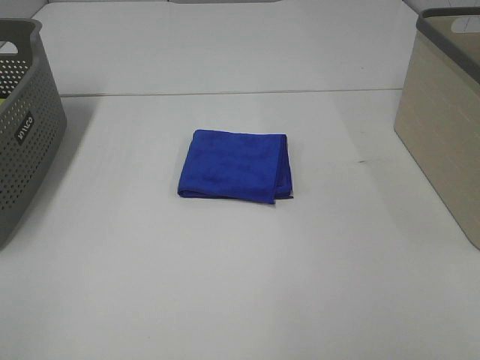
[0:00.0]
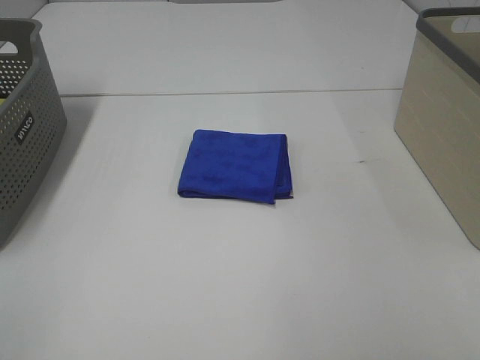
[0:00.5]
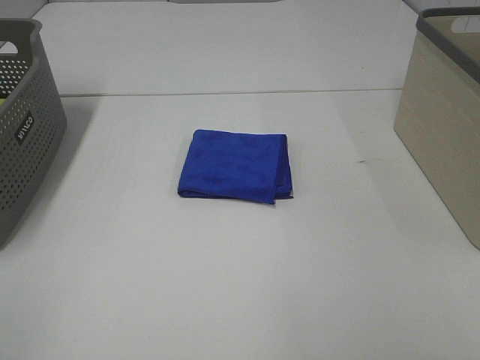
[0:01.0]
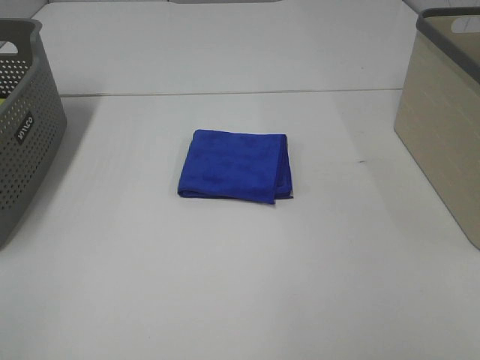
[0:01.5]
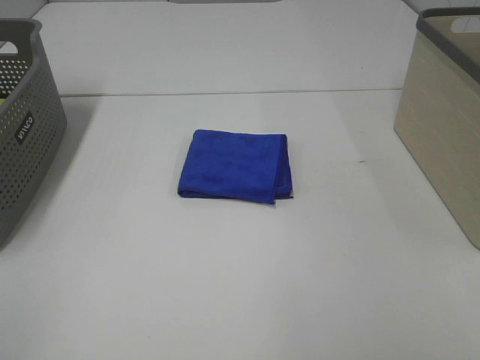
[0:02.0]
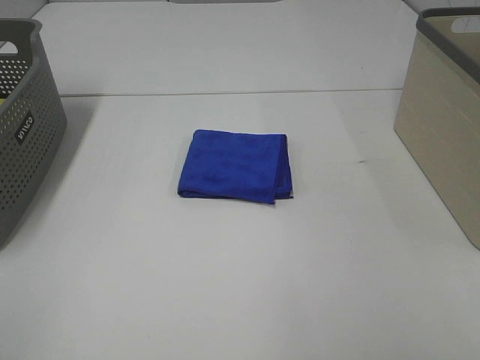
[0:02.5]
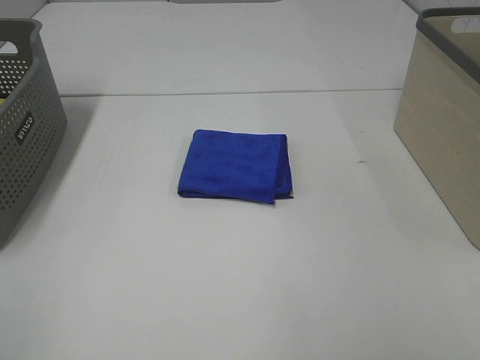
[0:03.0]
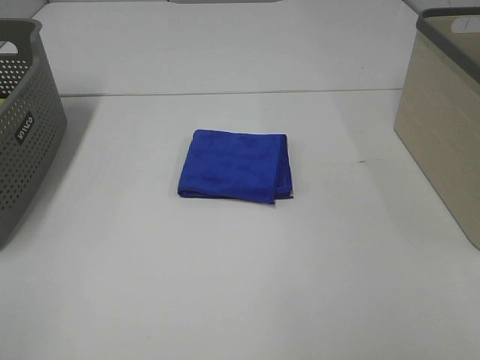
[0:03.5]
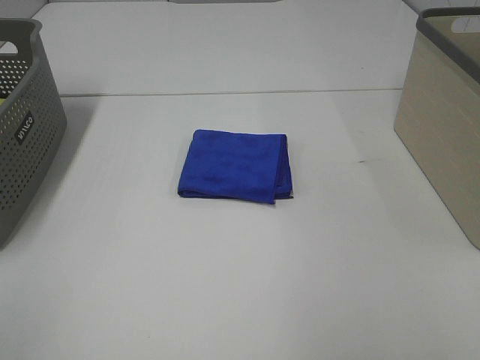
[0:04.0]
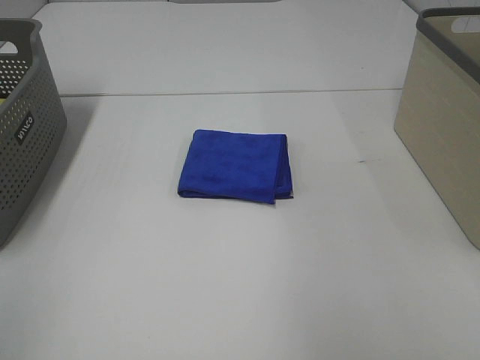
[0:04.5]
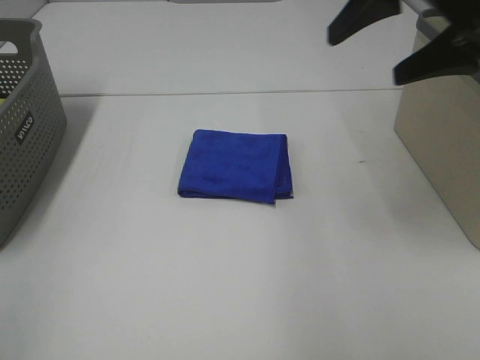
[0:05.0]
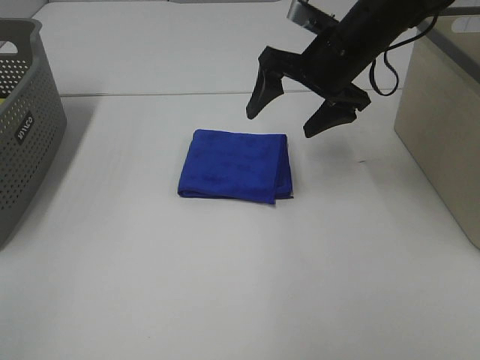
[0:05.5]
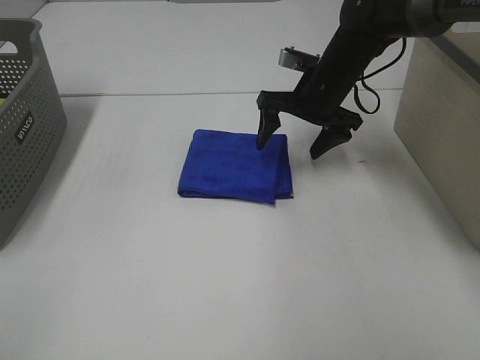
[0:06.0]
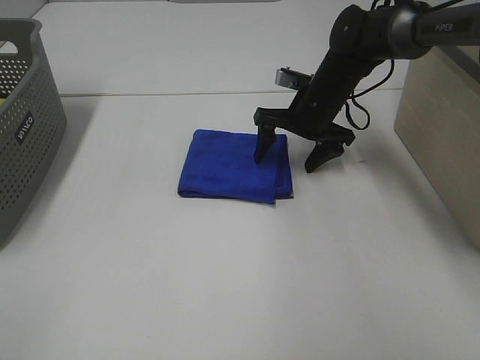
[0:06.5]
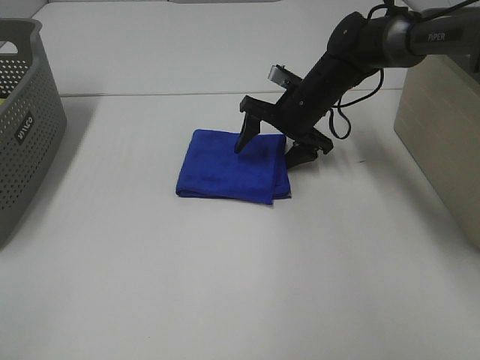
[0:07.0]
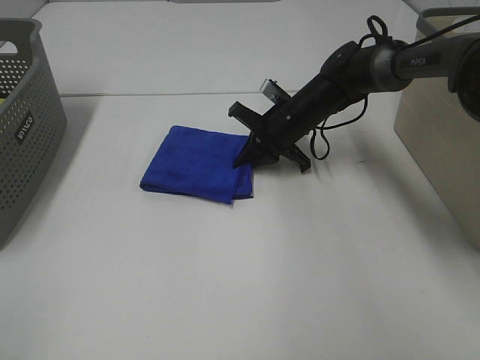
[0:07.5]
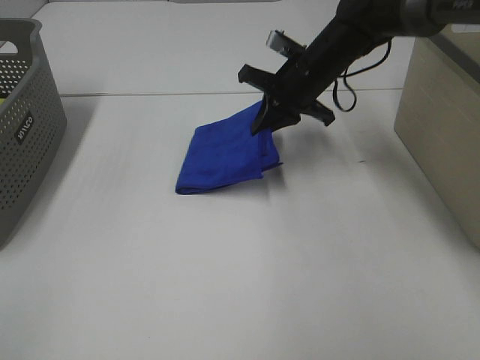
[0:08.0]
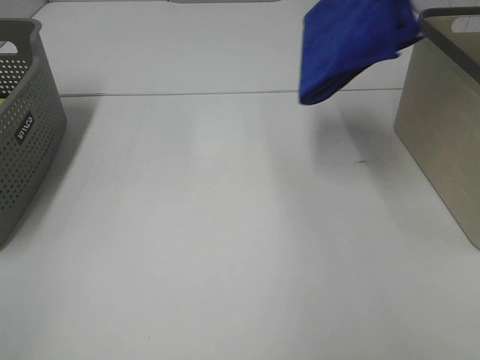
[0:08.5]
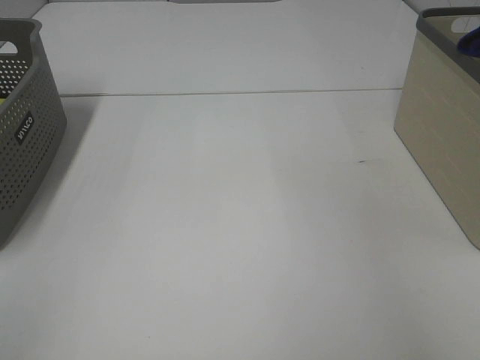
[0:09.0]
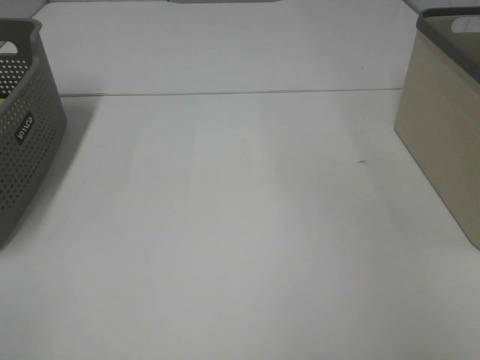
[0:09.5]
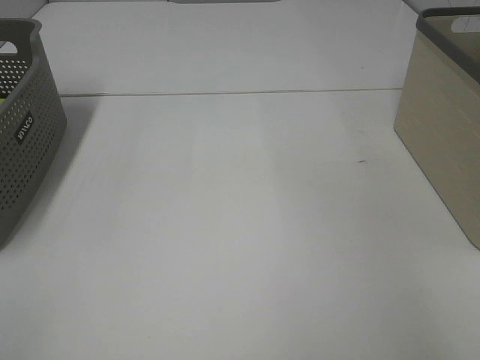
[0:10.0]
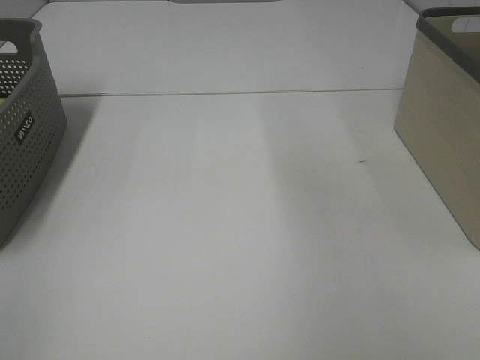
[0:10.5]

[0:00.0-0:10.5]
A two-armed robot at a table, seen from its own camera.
Step, 0:00.0 to 0:07.0: Right hand: grab the folded blue towel.
Step, 0:07.5 to 0:09.5: Right hand: place the blue towel in right basket.
0:00.0 to 0:02.0: Both grippers stay put.
0:04.0 to 0:06.5: The right gripper goes some 50 cm forward, downward and to the left.
0:06.5 to 0:08.5: The right gripper moves upward and to the right, roughly 30 cm, and closes.
0:08.5 to 0:10.5: The right gripper goes to the right and returns, about 20 cm each way, and opens its fingers.

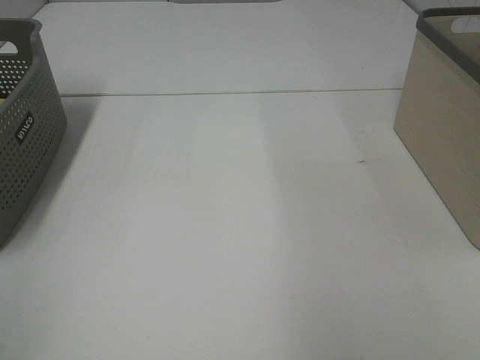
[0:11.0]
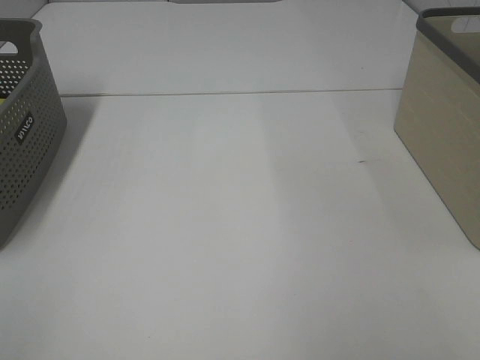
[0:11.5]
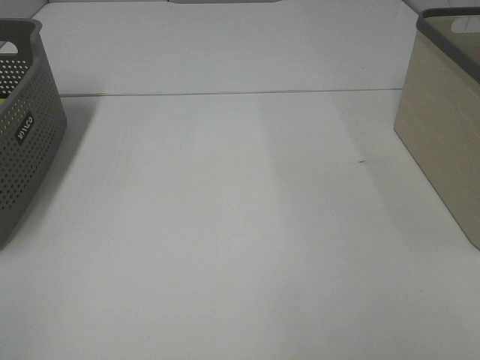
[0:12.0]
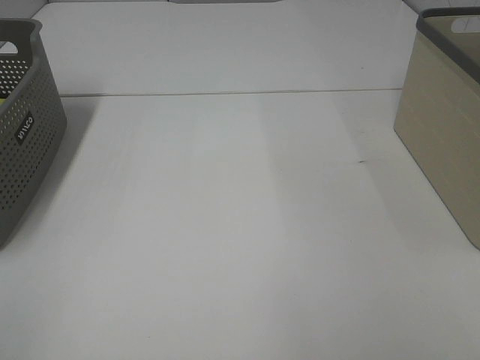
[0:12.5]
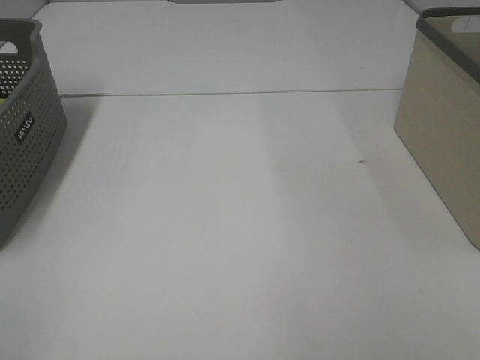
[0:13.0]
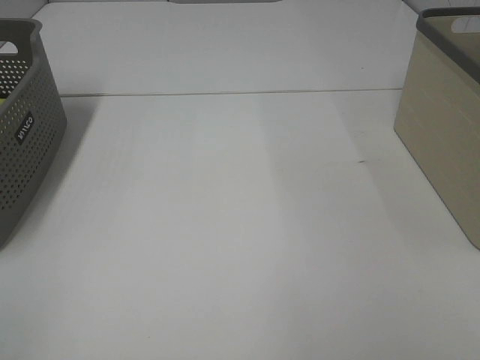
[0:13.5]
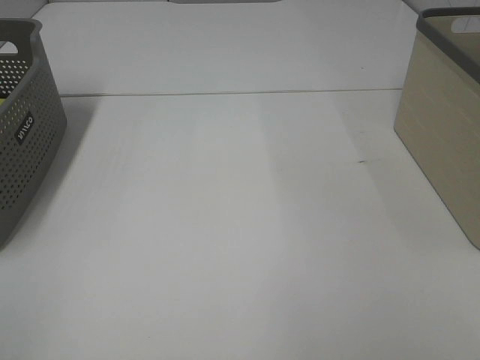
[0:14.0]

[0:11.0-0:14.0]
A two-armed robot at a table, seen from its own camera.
0:12.5 to 0:14.0: The two grippers keep their place.

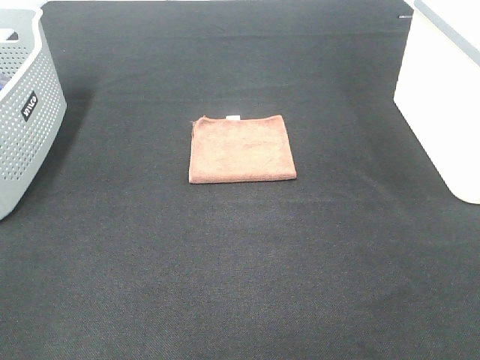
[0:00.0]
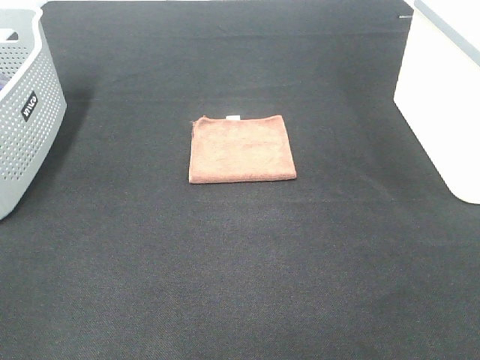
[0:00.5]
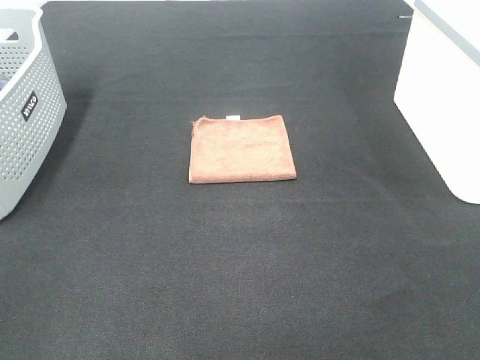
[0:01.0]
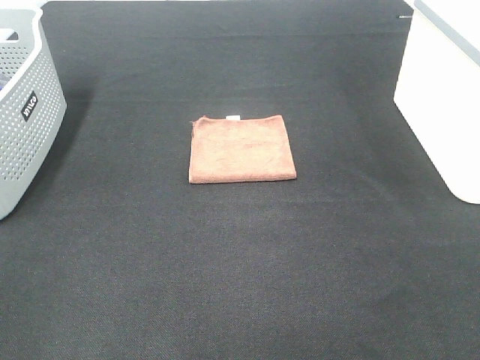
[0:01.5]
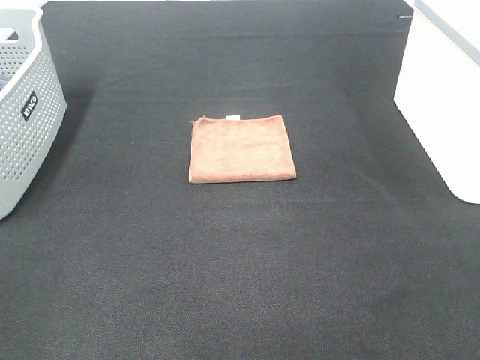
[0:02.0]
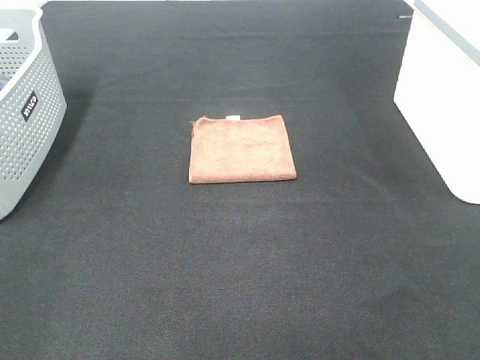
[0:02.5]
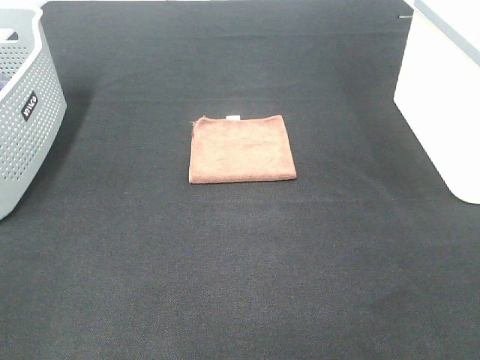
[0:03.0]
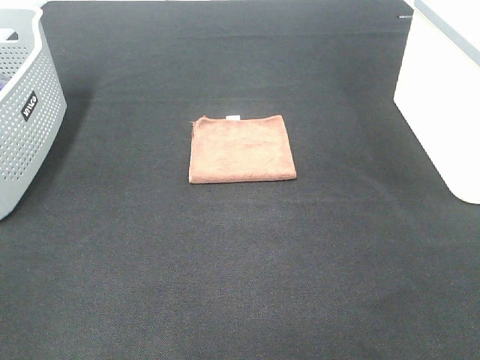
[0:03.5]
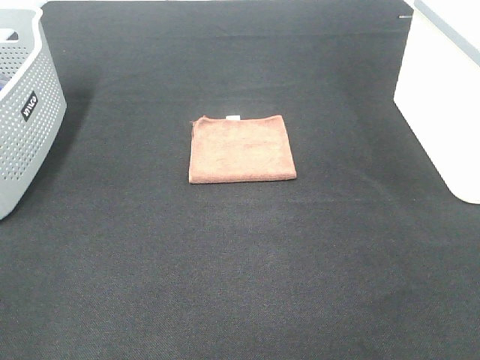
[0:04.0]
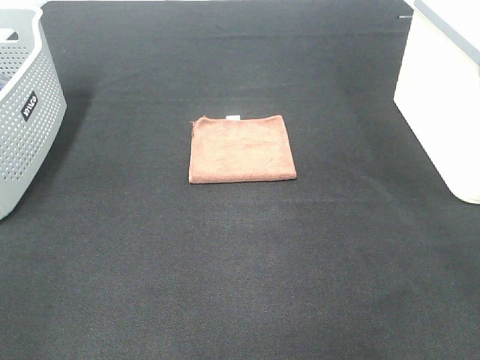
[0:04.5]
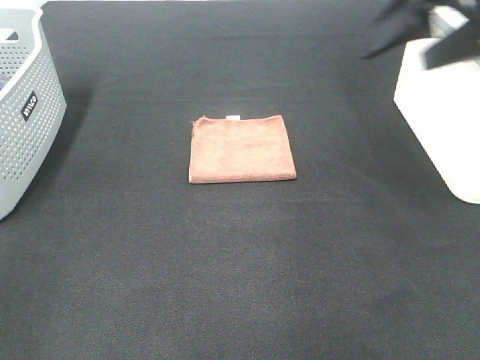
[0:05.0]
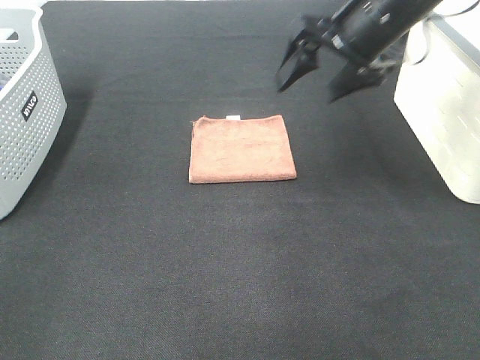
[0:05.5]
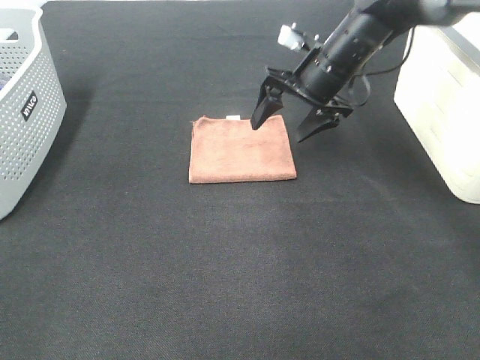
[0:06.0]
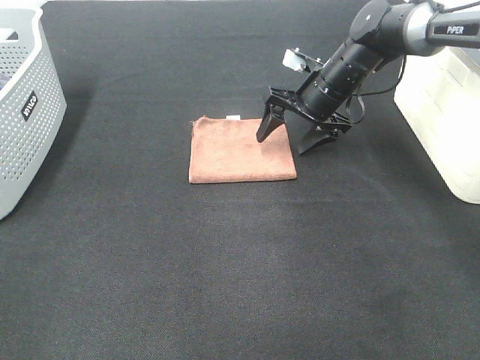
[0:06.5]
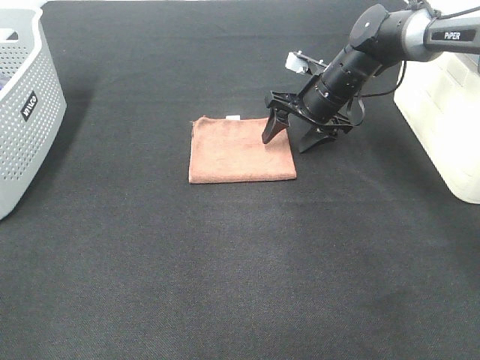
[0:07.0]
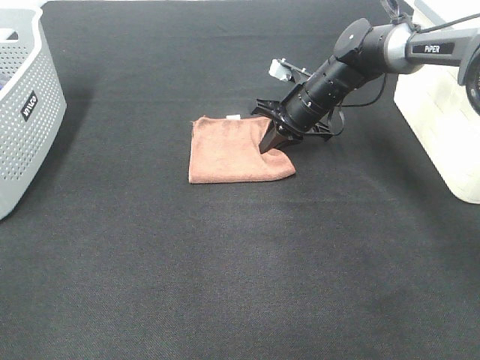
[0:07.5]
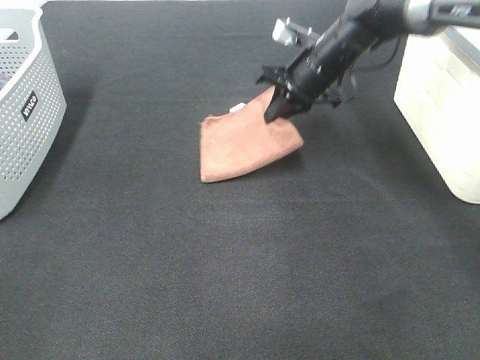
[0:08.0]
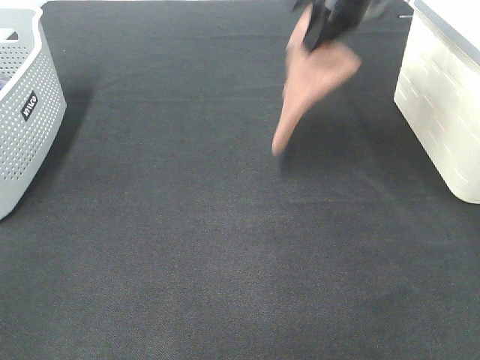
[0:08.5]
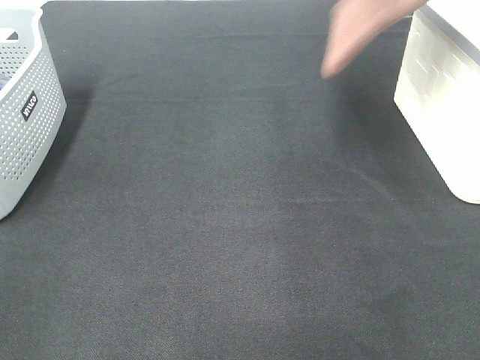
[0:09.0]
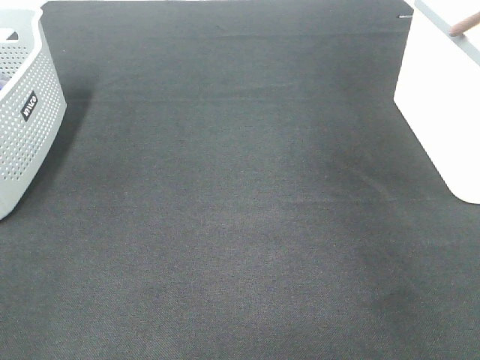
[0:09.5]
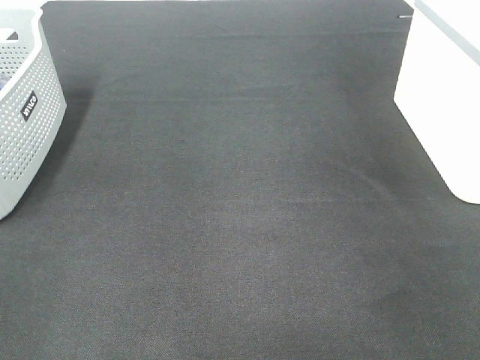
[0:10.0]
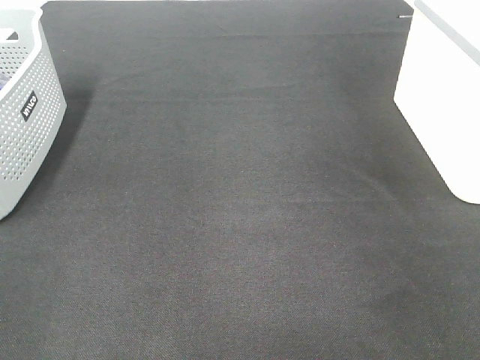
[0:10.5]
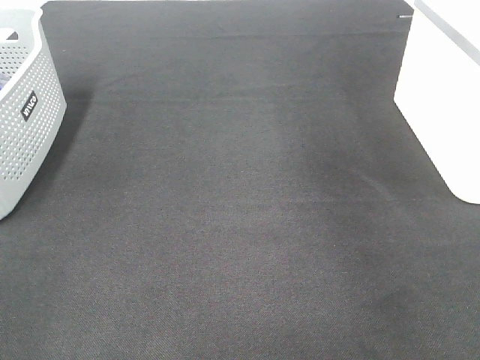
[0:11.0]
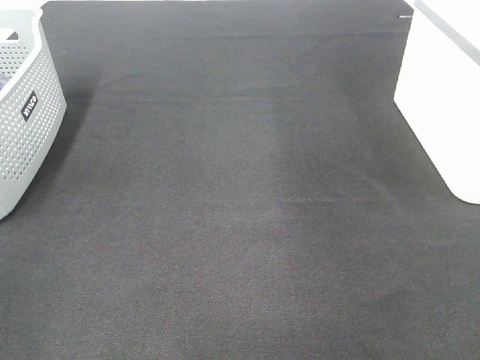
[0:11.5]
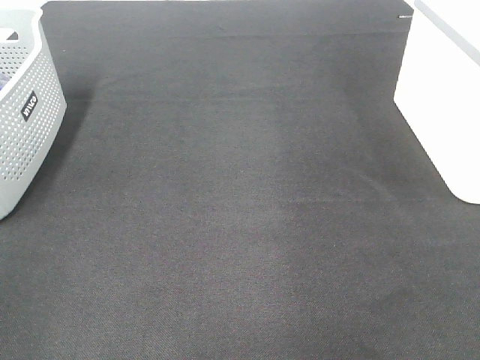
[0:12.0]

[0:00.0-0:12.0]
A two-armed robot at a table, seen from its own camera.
Step, 0:00.0 to 0:07.5: Right hand: grab the folded brown towel.
Step, 0:08.0 to 0:10.0: Right hand: place the brown towel in right basket.
0:00.0 to 0:02.0: Both grippers stay put.
0:04.0 to 0:06.0: The right gripper is displaced forward by roughly 40 cm.
0:06.0 to 0:08.0: The right gripper closes up.
0:08.0 to 0:10.0: The right gripper shifts about 35 cm to the right and upward.
